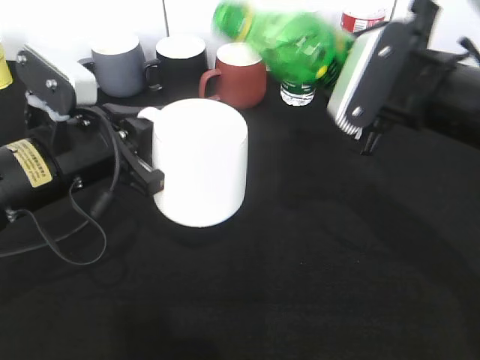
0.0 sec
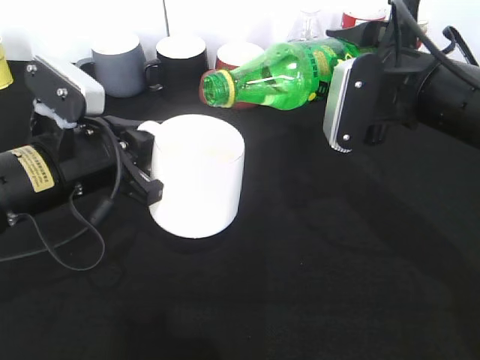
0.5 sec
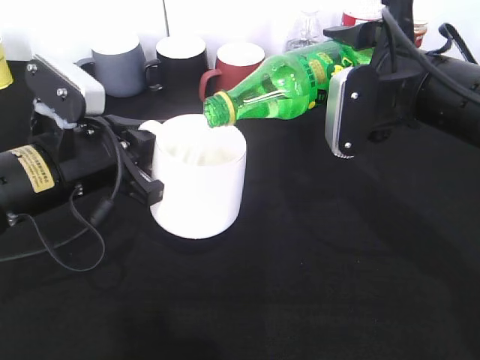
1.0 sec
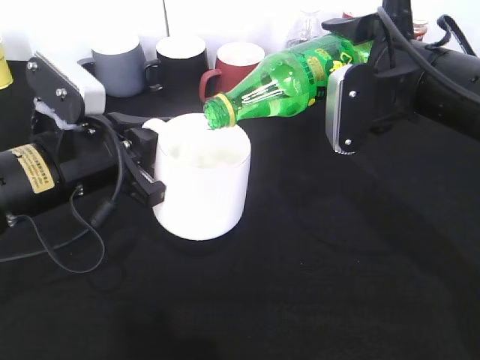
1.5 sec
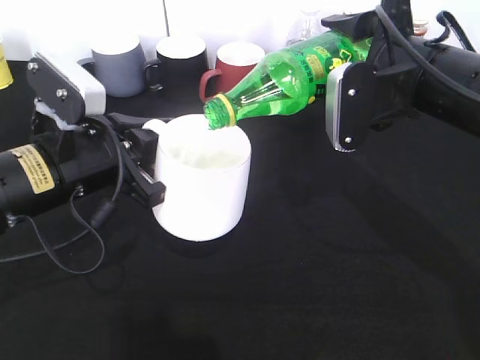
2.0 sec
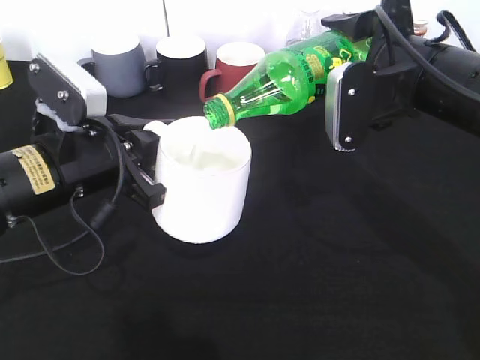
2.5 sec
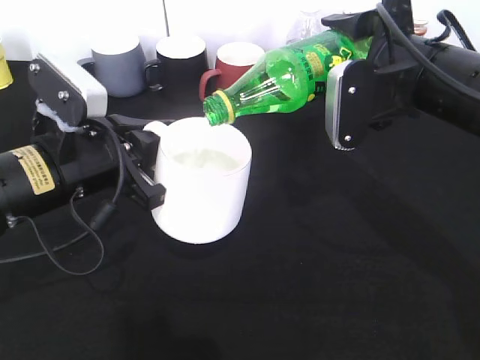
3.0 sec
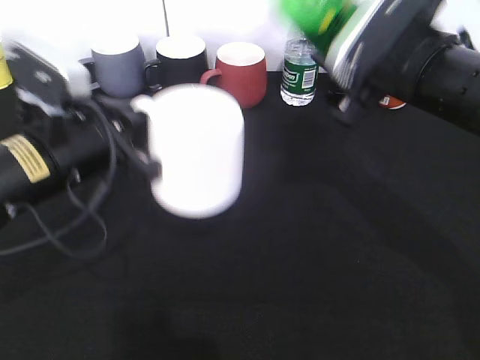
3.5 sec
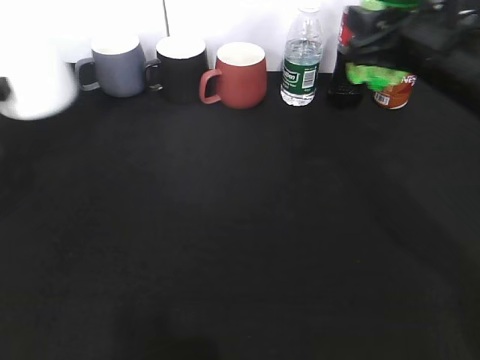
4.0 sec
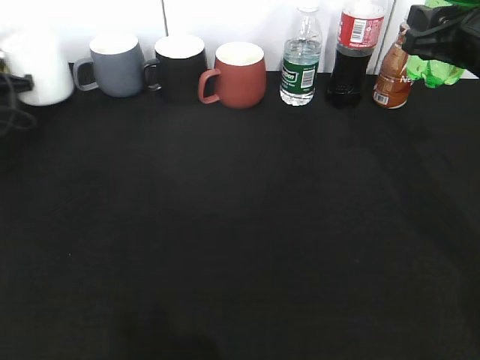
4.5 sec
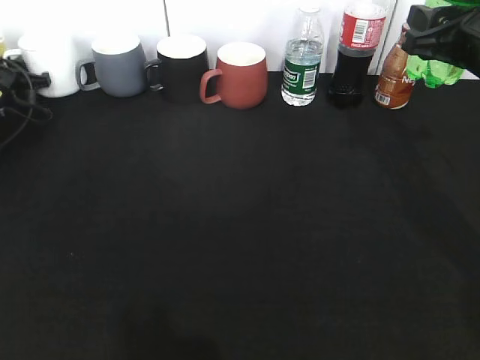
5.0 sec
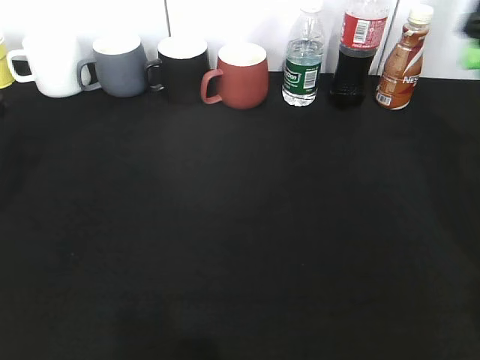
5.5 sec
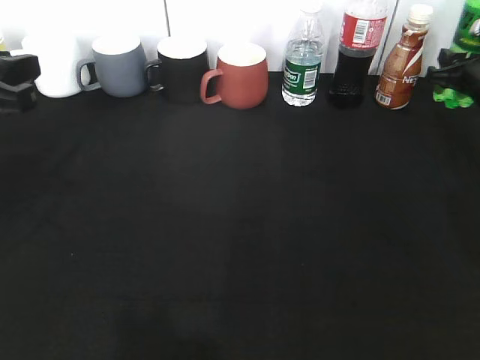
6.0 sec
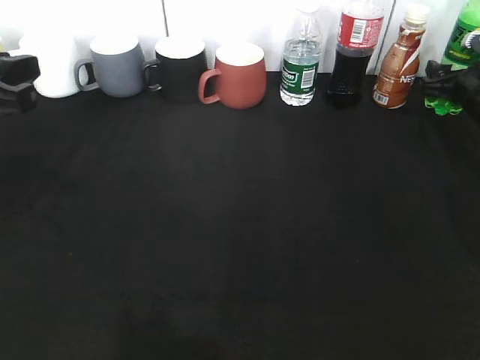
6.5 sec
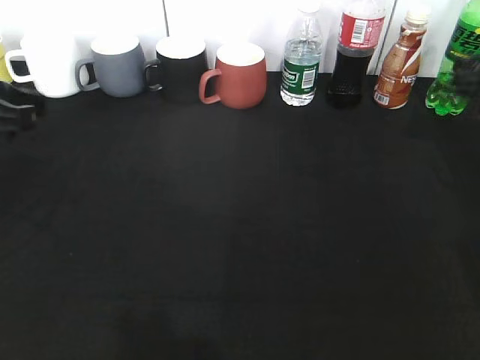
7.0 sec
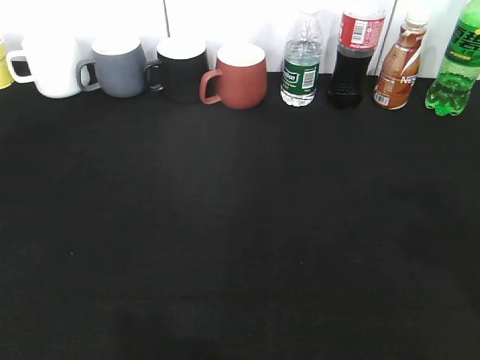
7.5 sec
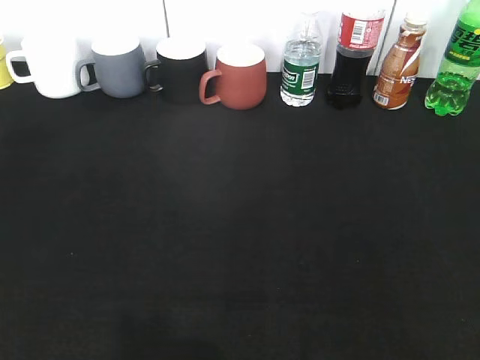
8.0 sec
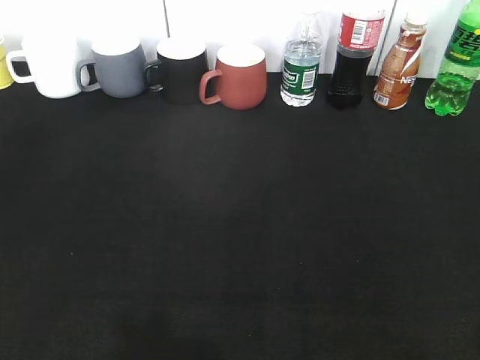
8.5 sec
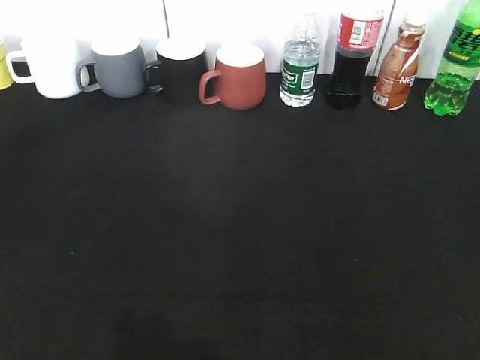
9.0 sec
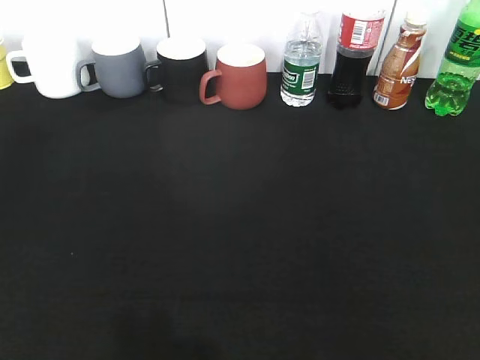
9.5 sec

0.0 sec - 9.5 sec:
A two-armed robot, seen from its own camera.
Step, 0.0 sec - 3.0 sec: Pour the sprite from bottle to cup with right gripper.
Step, 3.5 sec - 6.5 sec: Place the sprite bottle on the table with right gripper.
2.0 sec - 4.0 sec: The left gripper shifts roughly 15 cm to the left and forward.
4.0 sec - 5.5 sec: The left gripper reaches roughly 20 cm forward, then returns, and opens its fingers; the right gripper shifts approximately 10 cm to the right.
5.5 sec - 7.5 sec: The two grippers go approximately 20 cm backward and upward. The right gripper opens its fingers; the left gripper opens.

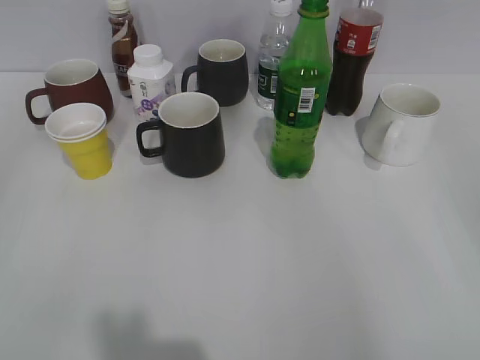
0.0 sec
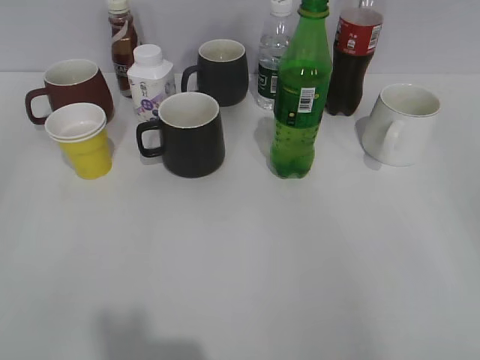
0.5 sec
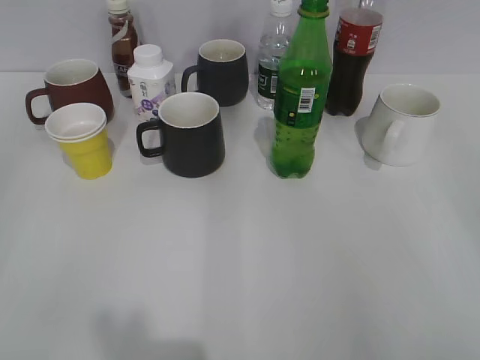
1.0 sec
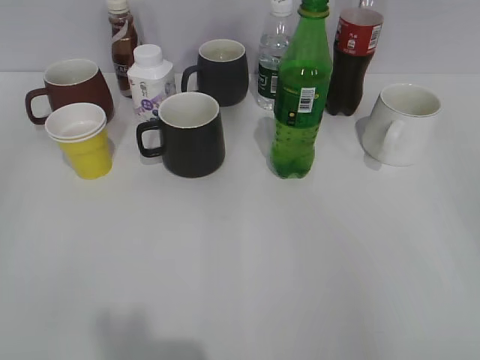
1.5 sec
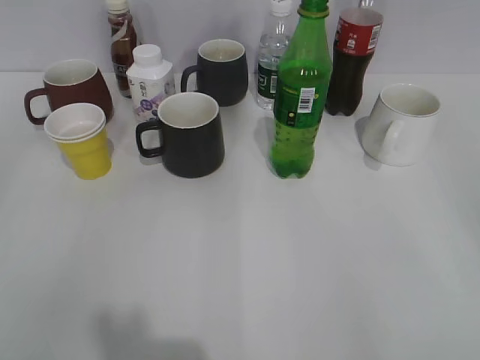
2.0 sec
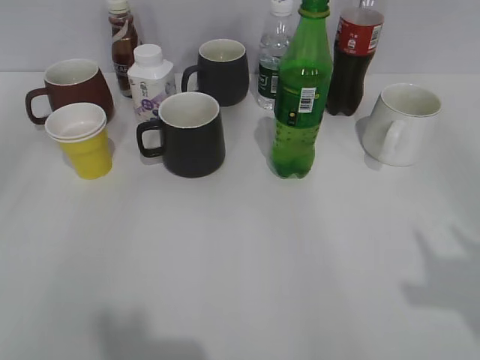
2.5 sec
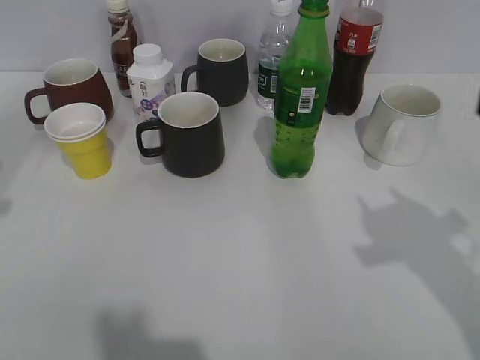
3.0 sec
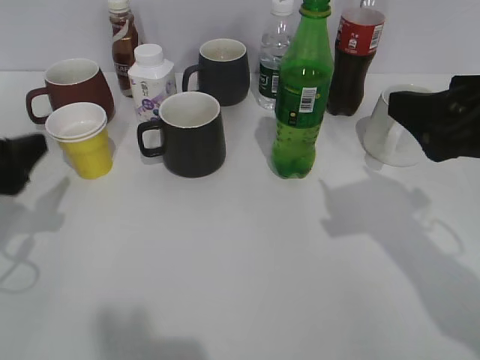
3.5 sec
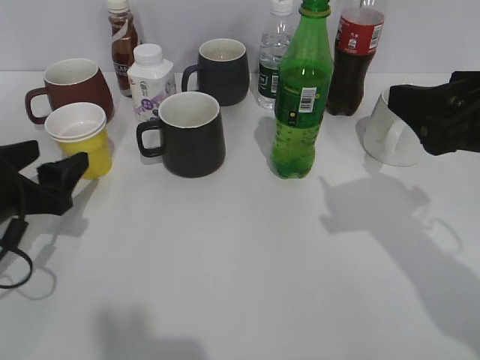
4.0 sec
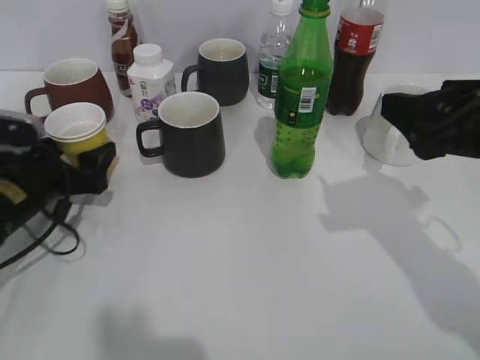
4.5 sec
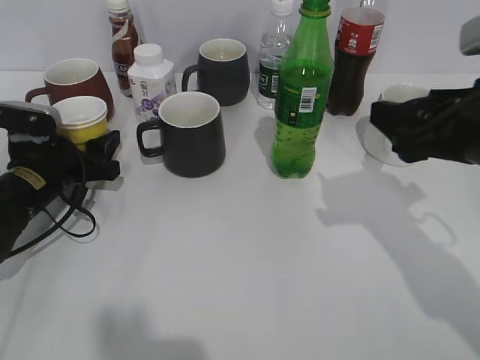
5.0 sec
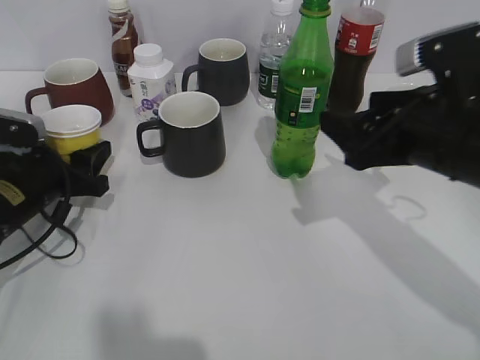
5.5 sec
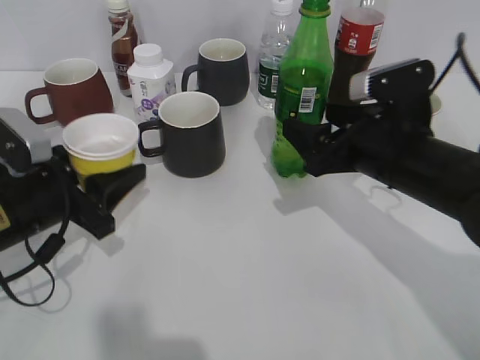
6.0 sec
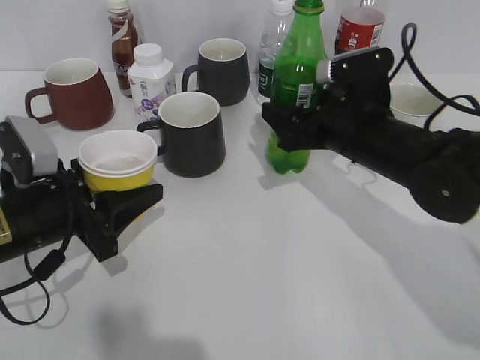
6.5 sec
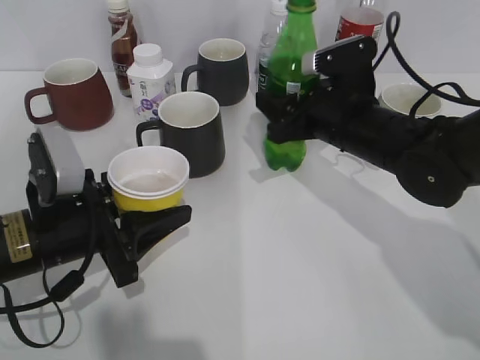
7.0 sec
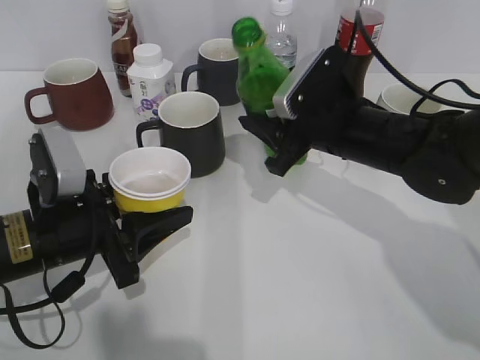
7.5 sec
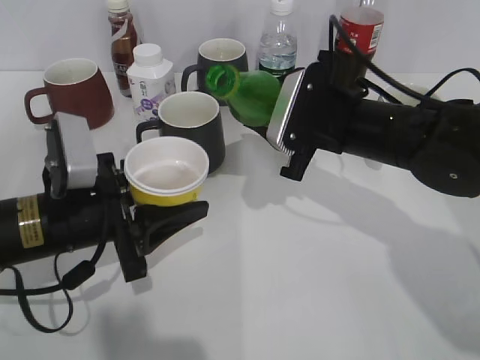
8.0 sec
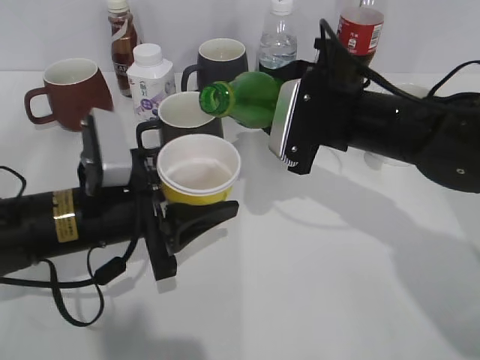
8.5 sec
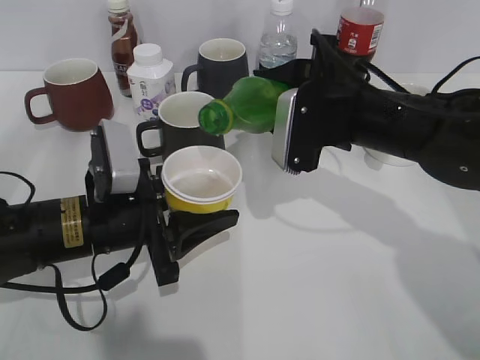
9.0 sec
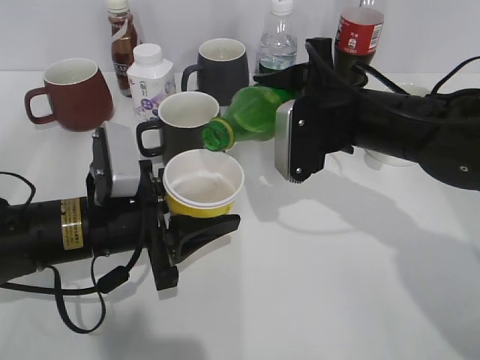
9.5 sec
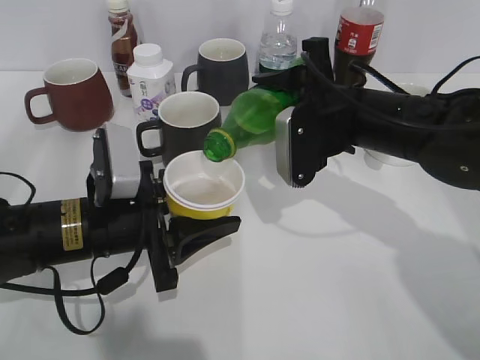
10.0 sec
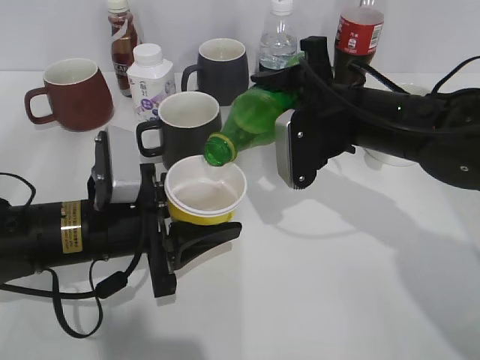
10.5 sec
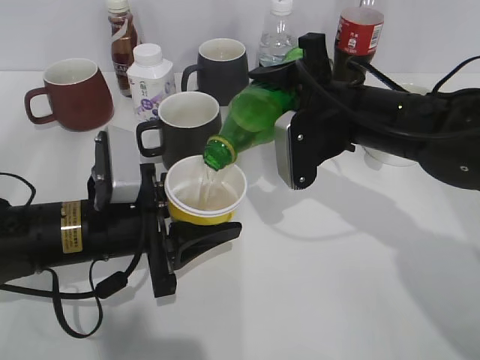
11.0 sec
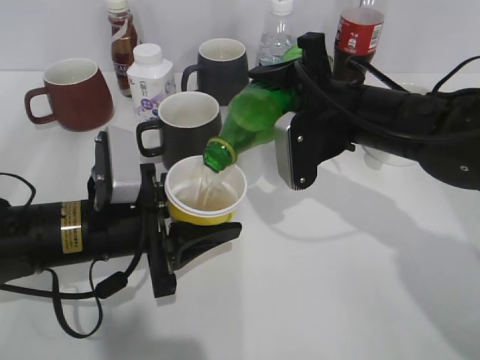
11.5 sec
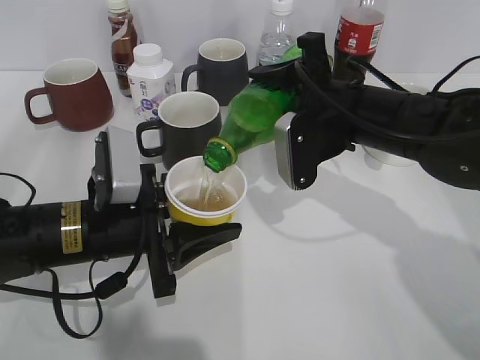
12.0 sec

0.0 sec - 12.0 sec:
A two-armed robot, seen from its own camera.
Step, 2.0 sec - 4.0 sec: Grasp the yellow paper cup with left gripper.
Step, 4.5 sec - 7.0 sec: Grasp the bottle with sprite with right gripper.
2.0 sec - 4.0 sec: The right gripper shifts some 20 cm forward and to the left, and opens up; the left gripper moves forward and downward, roughly 25 cm, and opens up.
4.0 sec - 6.0 sec: The right gripper goes about 15 cm downward, forward and to the left, while the left gripper goes forward and returns, roughly 10 cm each way, and closes up.
6.0 sec - 8.0 sec: The right gripper changes place by some 5 cm, and closes its fingers, while the left gripper goes roughly 5 cm to the right.
10.0 sec - 12.0 sec: The grippers make only small movements.

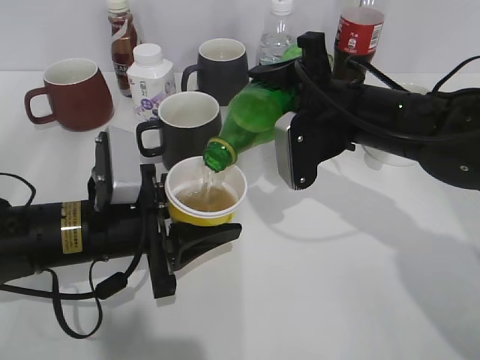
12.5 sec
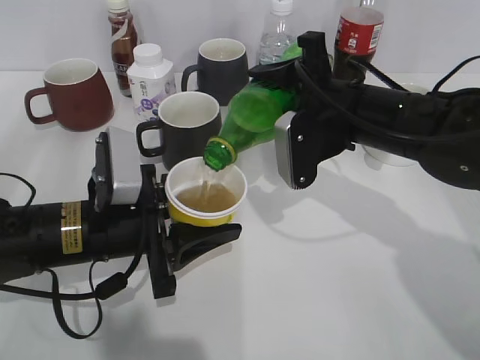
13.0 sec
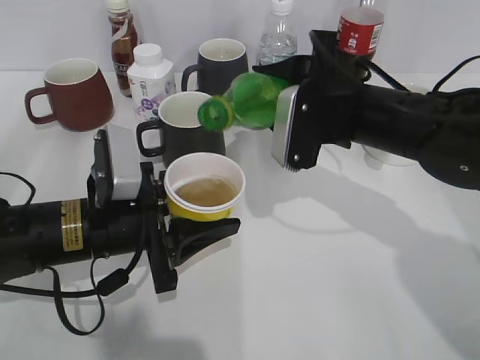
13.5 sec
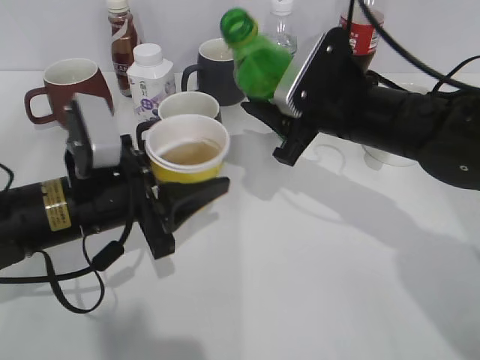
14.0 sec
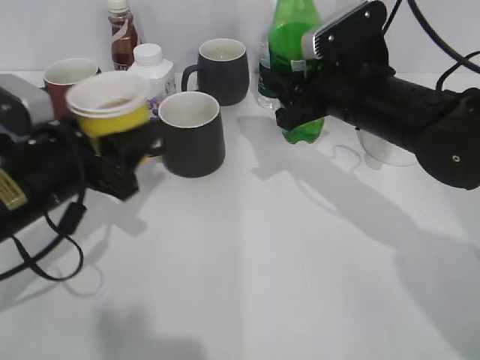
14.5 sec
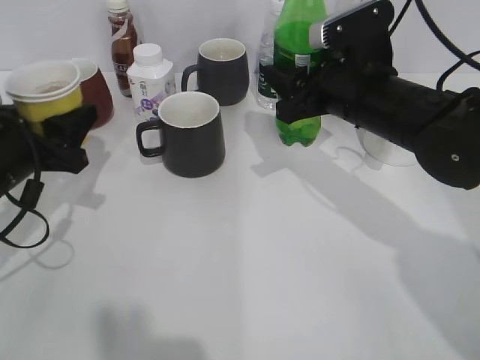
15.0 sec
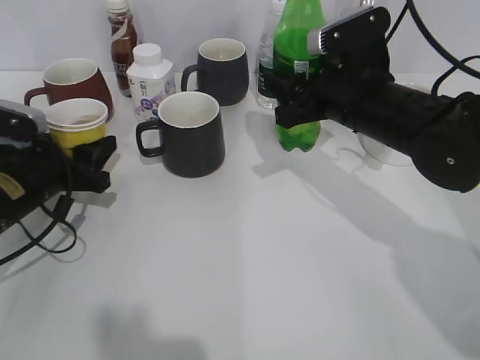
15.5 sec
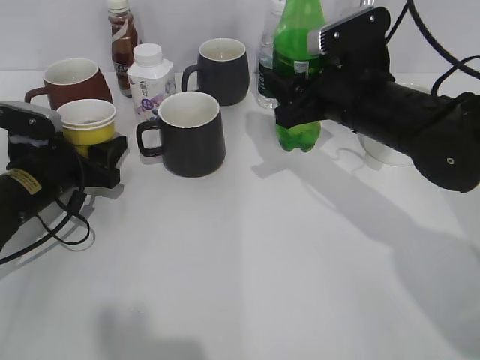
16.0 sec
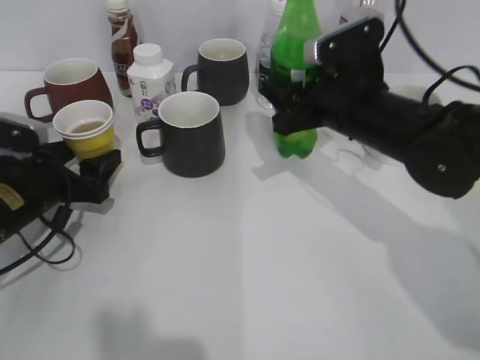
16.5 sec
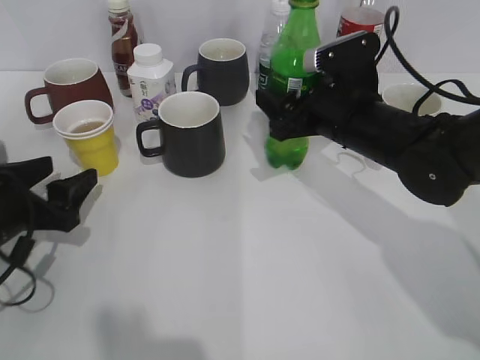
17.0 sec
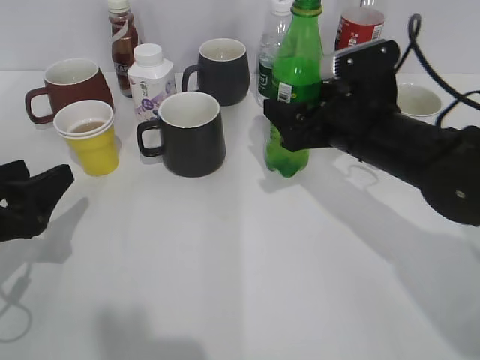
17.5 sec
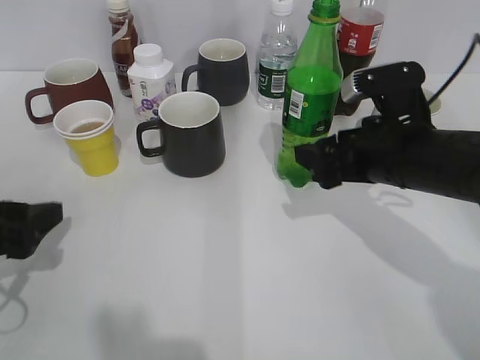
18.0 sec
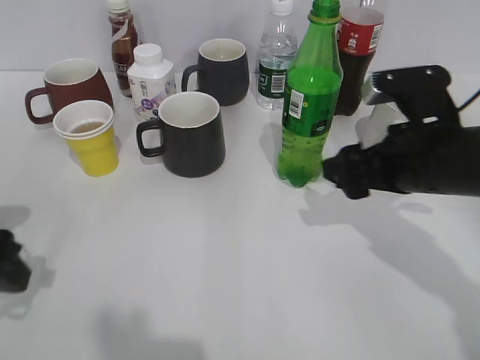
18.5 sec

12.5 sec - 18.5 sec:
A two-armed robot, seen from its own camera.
Step, 14.0 sec - 15.5 sec: Place the yellow paper cup on the table with left gripper.
Step, 16.0 sec - 18.0 sec: Place the sprite bottle on the table with right gripper.
12.5 sec - 14.5 sec: The left gripper moves about 5 cm.
14.5 sec - 16.5 sec: The left gripper travels downward, to the left and forward by roughly 10 cm, and opens.
16.5 sec - 18.5 sec: The right gripper travels backward by about 5 cm, and opens its fingers. The left gripper shifts roughly 15 cm backward and upward.
